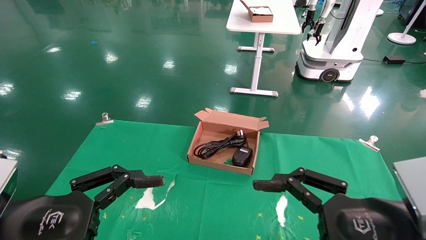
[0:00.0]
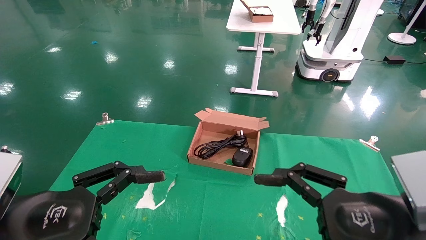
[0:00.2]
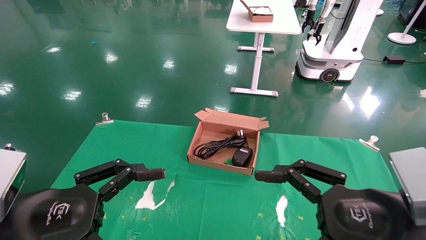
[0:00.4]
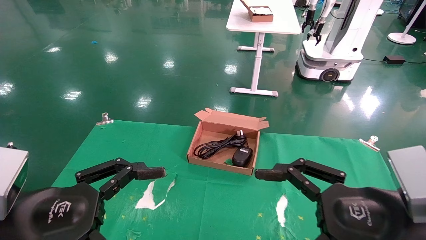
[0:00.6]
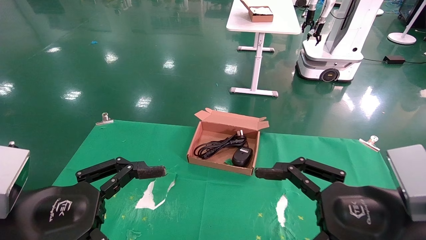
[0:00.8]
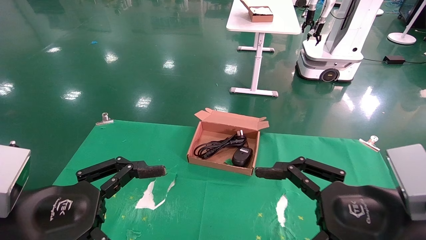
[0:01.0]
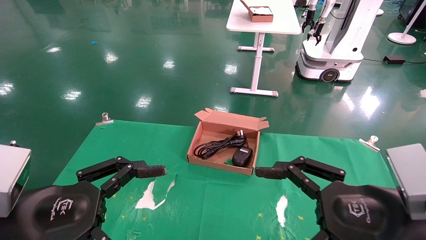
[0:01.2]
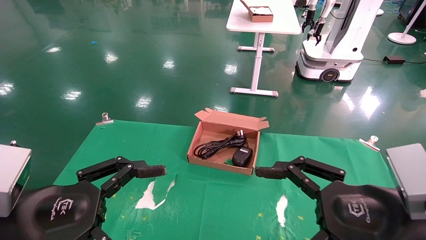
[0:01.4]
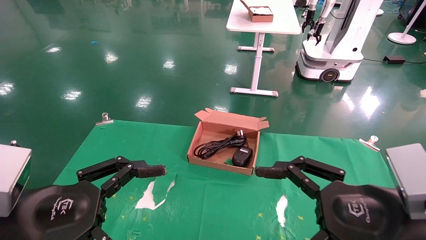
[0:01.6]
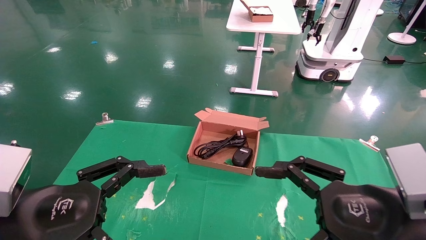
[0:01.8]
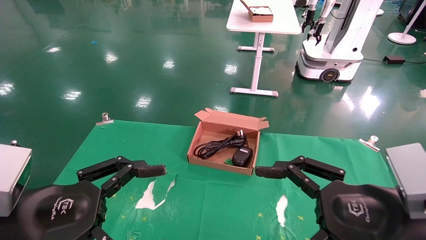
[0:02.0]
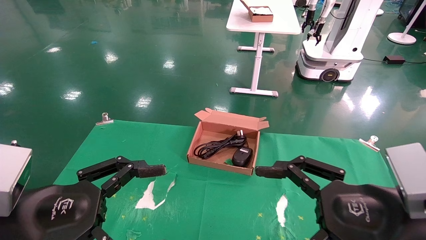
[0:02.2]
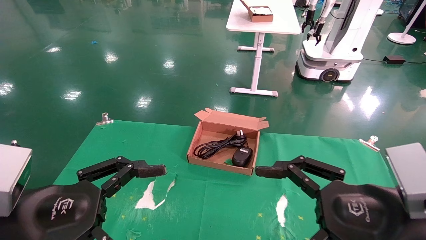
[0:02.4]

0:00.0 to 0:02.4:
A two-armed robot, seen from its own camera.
0:00.0 to 0:02.4: Both grippers stay put.

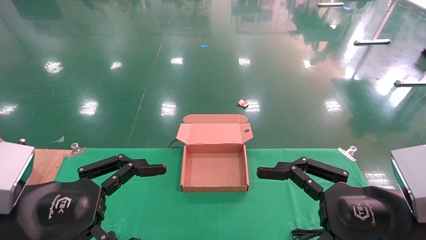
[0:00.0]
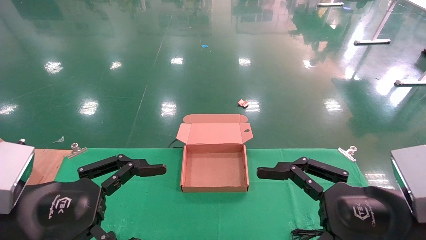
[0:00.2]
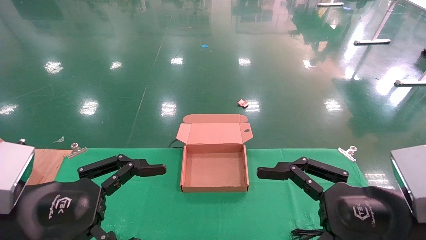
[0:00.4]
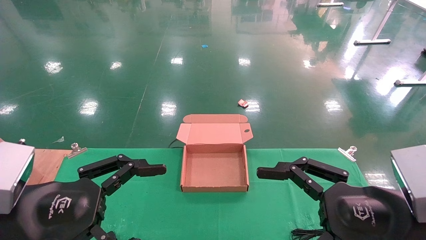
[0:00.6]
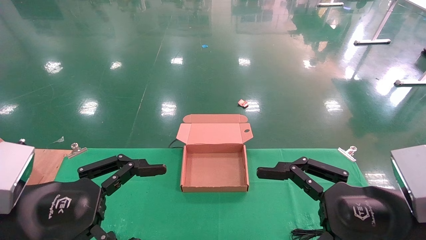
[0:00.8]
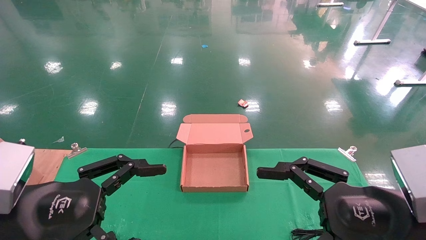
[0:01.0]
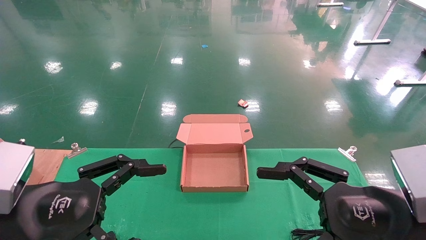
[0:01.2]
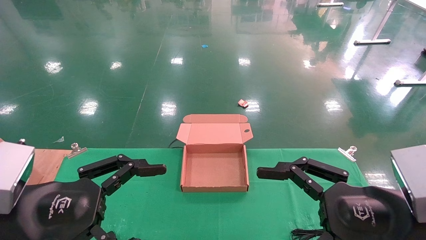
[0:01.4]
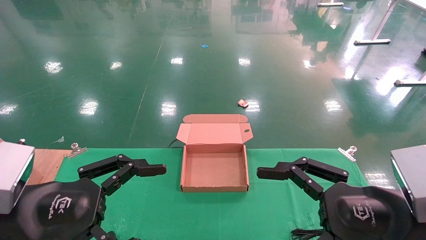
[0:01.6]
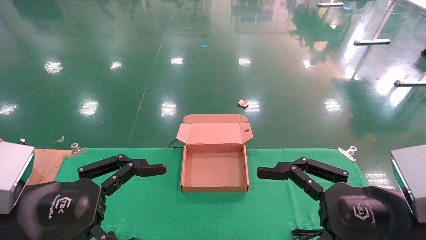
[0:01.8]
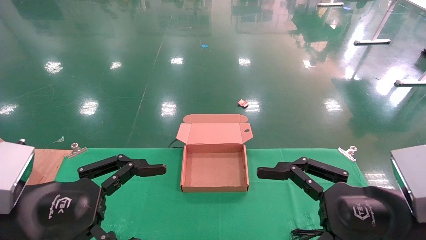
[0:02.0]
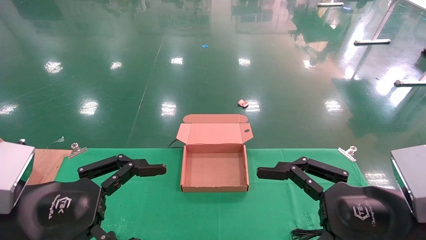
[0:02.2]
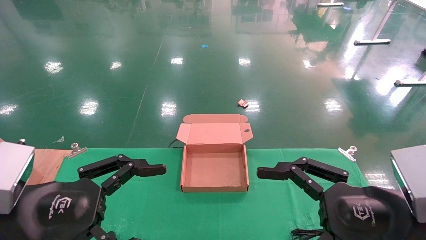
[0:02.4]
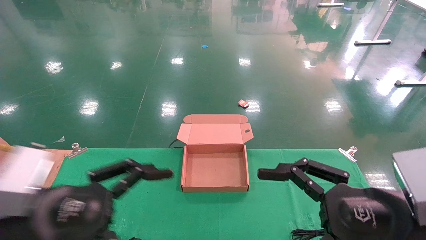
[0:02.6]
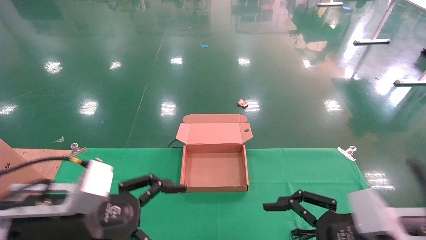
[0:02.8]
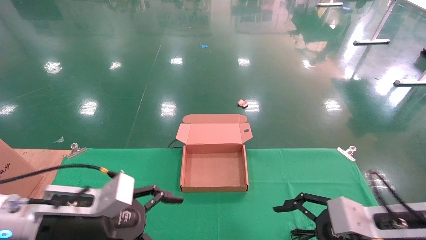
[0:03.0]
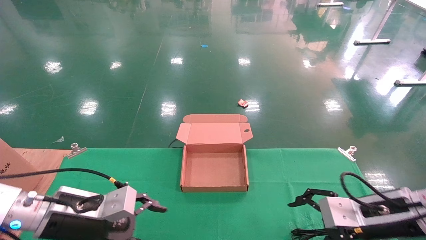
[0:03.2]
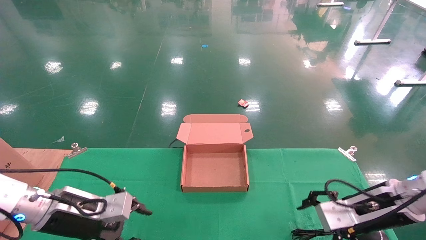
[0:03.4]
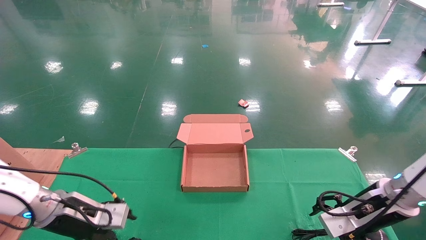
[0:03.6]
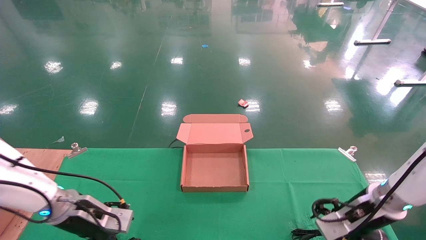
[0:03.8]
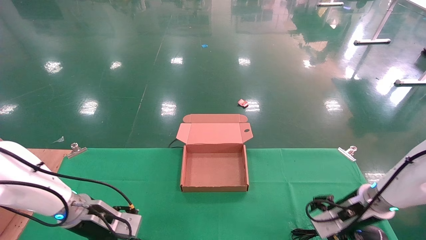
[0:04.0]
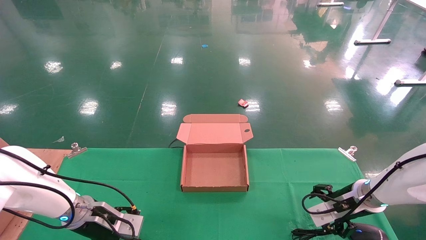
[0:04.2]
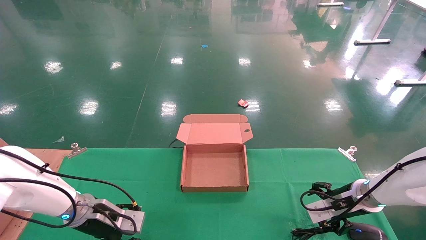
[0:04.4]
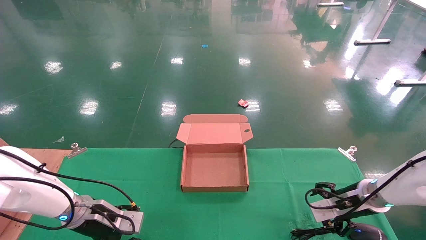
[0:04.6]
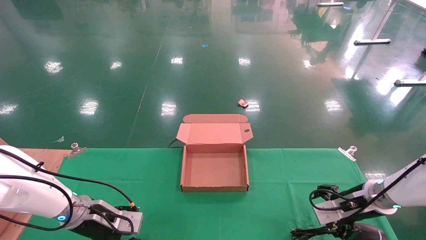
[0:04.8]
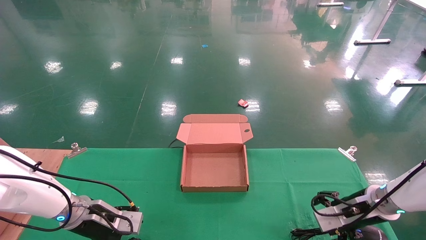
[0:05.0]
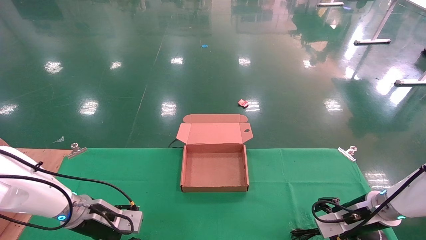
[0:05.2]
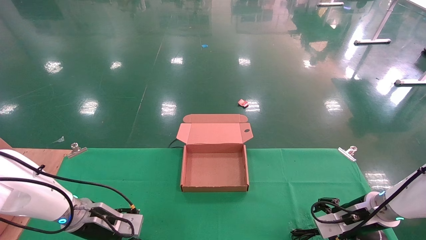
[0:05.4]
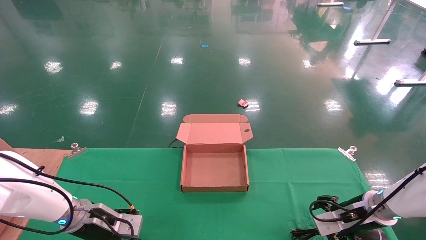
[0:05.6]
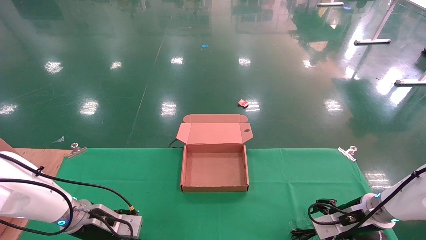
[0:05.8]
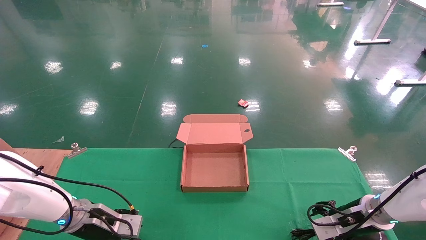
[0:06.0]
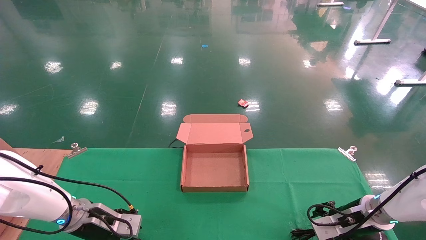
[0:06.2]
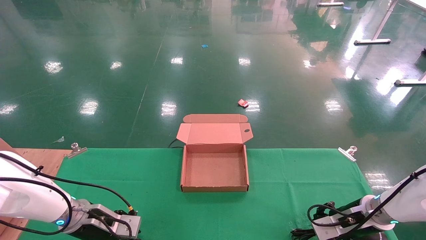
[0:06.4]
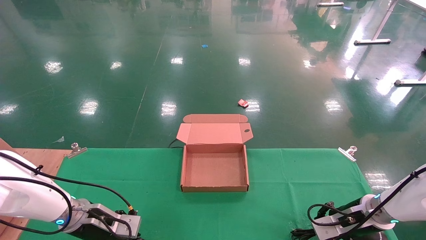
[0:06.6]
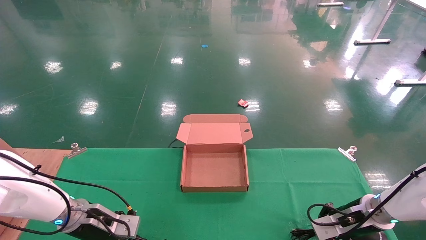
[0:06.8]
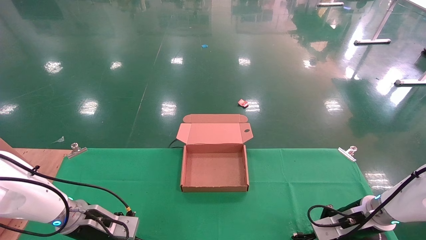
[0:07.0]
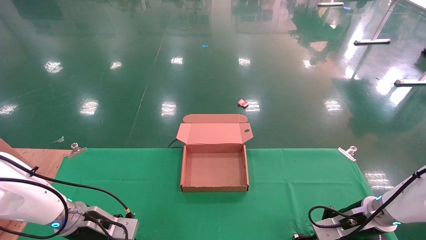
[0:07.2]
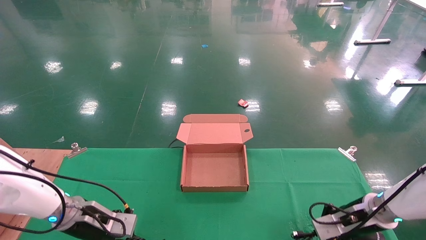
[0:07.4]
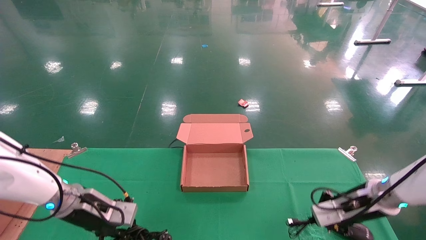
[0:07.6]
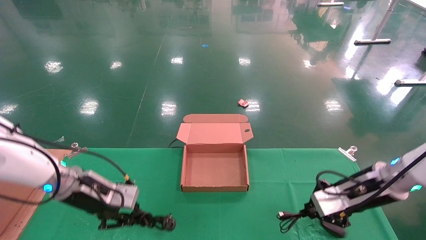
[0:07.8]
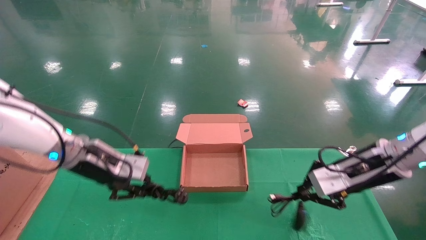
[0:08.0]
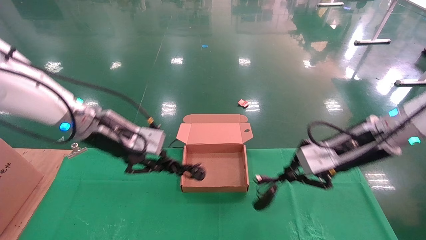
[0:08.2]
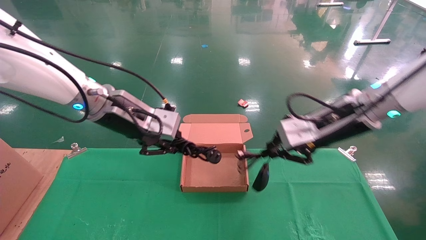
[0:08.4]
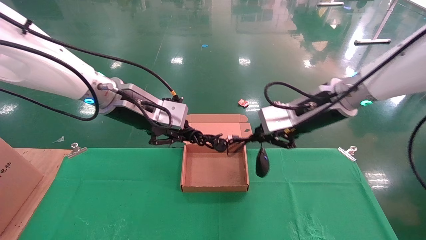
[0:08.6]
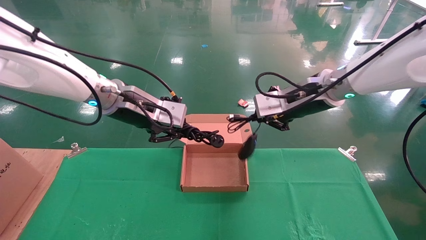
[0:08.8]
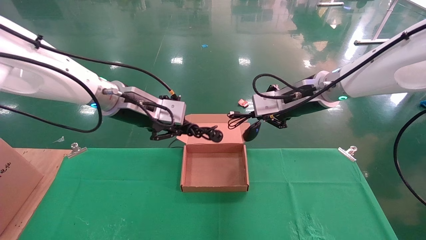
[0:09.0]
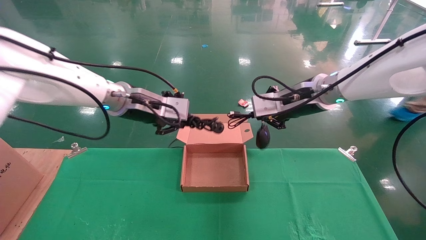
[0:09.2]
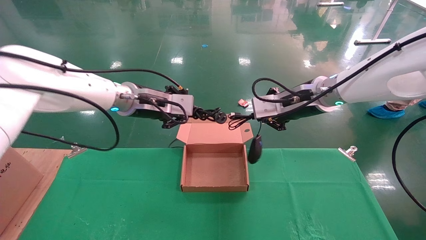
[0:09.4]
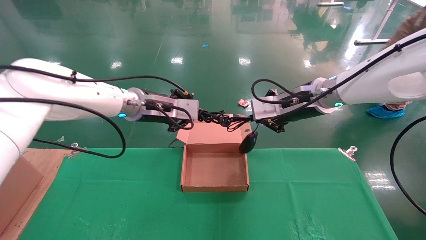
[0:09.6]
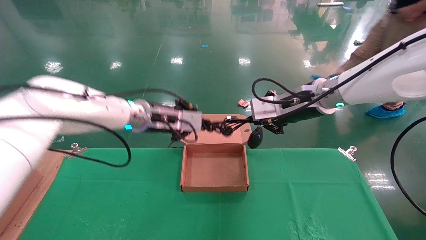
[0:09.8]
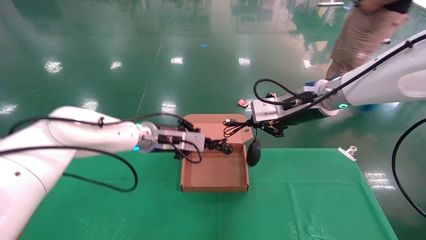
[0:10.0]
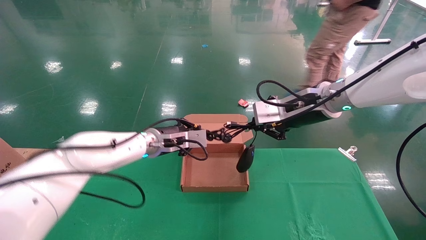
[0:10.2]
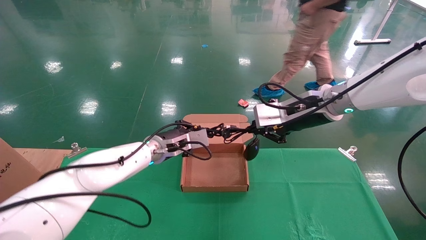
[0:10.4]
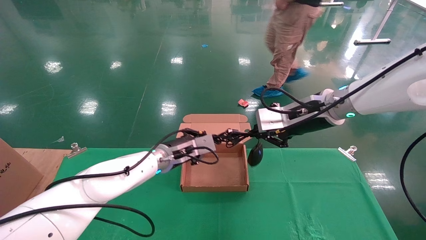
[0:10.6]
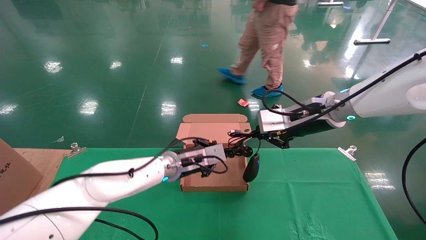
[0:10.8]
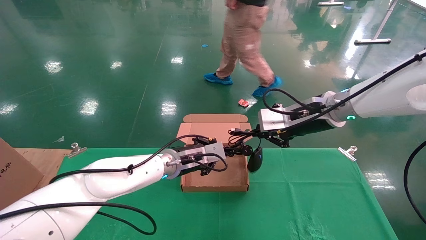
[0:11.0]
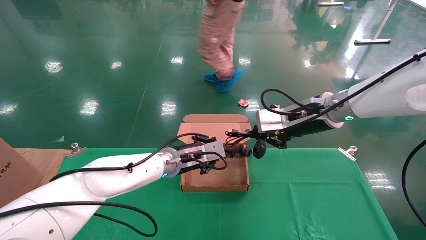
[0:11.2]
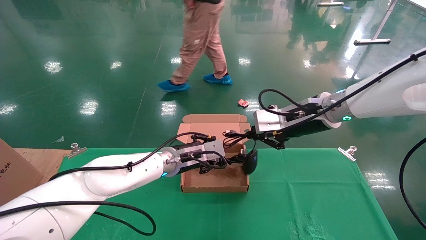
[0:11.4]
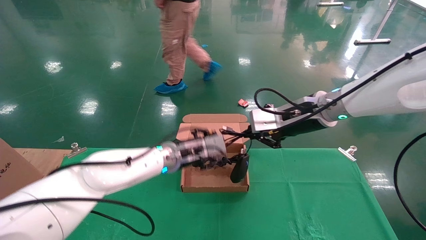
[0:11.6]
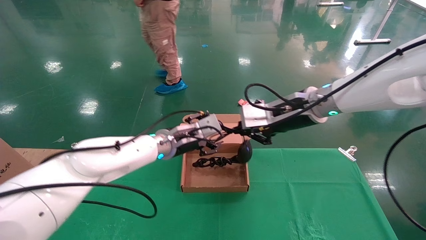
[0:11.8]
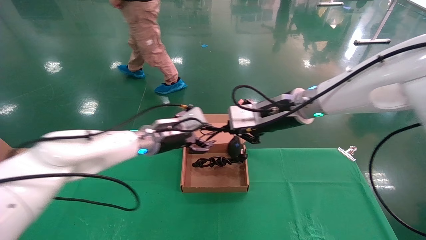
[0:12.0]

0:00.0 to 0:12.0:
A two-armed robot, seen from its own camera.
Step, 0:03.0 to 0:08.0: Grab and lift both the mouse and power cord from the accessory packaging area at the same time.
0:00.0 to 0:01.6: Both grippers stay put.
0:01.6 to 0:03.0: The two grippers go about 10 cm forward and downward.
0:03.0 to 0:04.4: The left gripper travels forward and downward by roughly 15 cm. Meanwhile the right gripper heads forward, covering about 15 cm.
0:04.4 to 0:06.0: The grippers move only a little.
0:06.0 to 0:07.6: Both grippers move upward, about 5 cm. The right gripper closes its fingers. Meanwhile the left gripper closes up.
0:07.6 to 0:09.0: The right gripper travels upward and to the left by about 25 cm. Meanwhile the left gripper is displaced upward and to the right by some 25 cm.
0:09.0 to 0:10.4: The left gripper goes about 15 cm downward and forward.
0:10.4 to 0:12.0: The right gripper heads to the left, covering about 5 cm. Meanwhile the left gripper opens its fingers.

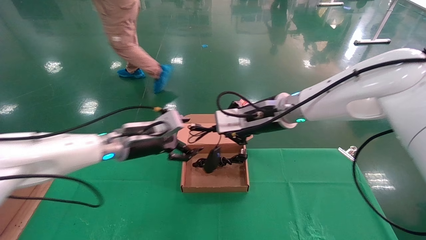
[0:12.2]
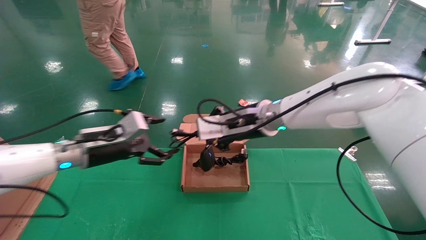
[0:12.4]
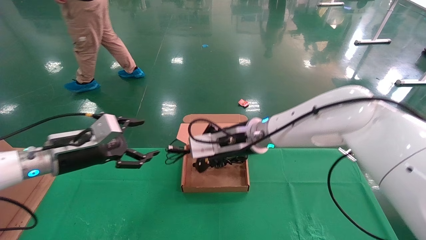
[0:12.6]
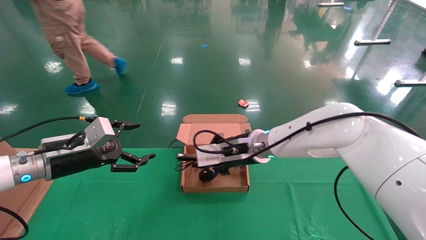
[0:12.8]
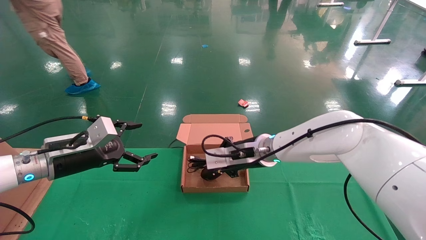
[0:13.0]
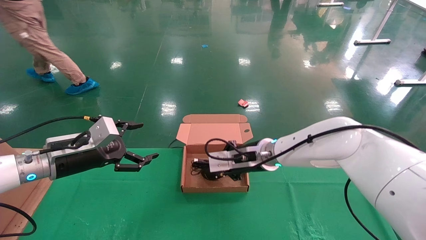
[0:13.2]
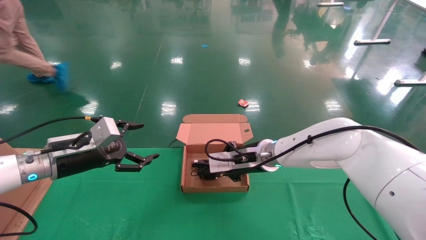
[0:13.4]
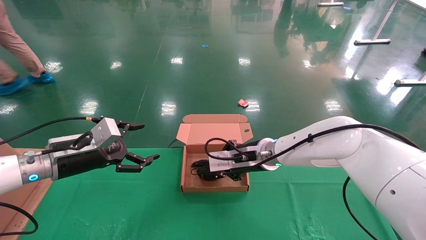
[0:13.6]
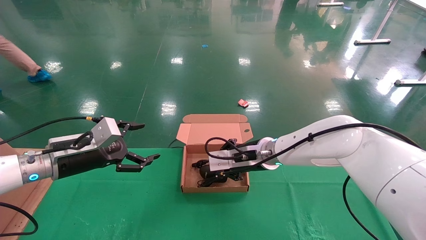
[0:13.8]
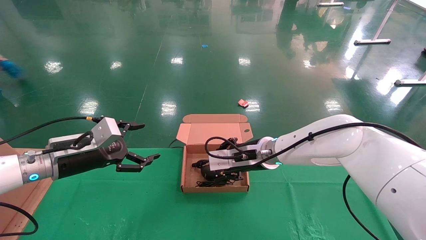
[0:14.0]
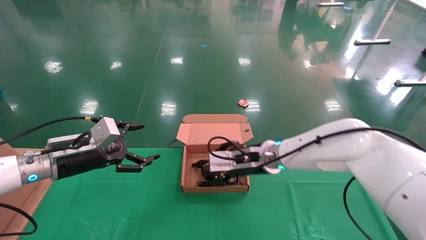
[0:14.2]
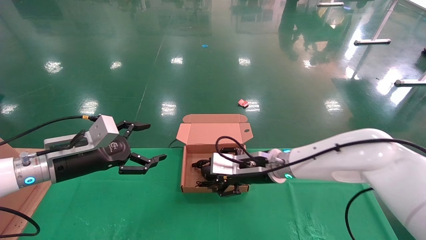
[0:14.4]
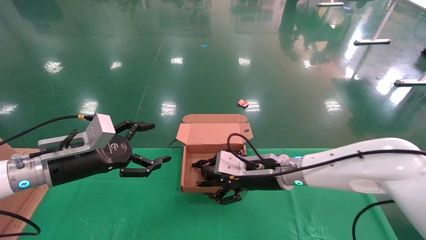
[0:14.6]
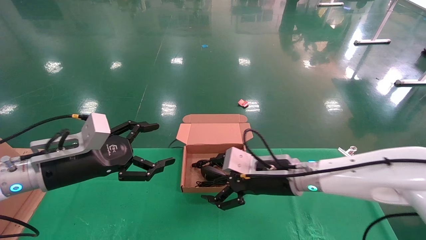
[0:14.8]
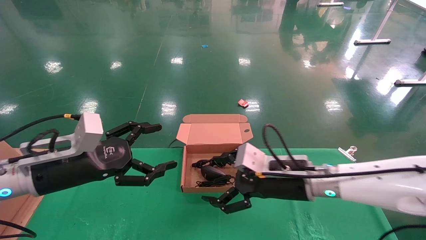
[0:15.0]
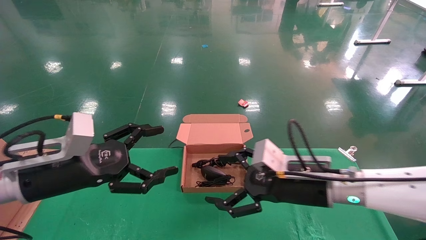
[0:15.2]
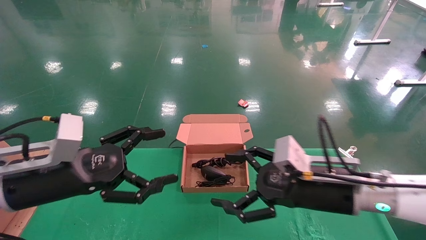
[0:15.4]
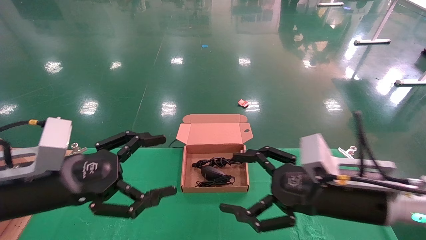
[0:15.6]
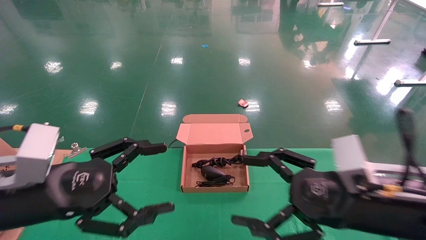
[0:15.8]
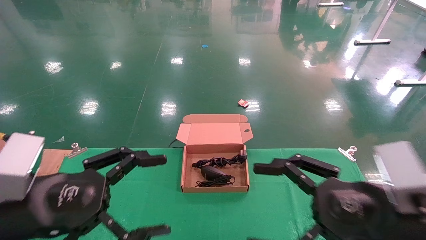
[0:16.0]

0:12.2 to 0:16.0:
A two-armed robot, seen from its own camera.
0:12.2 to 0:13.4: The left gripper travels to the left and backward by approximately 15 cm; the right gripper moves downward, some 10 cm.
0:13.4 to 0:14.8: Both grippers move backward, about 5 cm. The right gripper opens up.
0:14.8 to 0:16.0: The right gripper travels backward and to the right by about 20 cm; the left gripper heads backward, covering some 15 cm.
